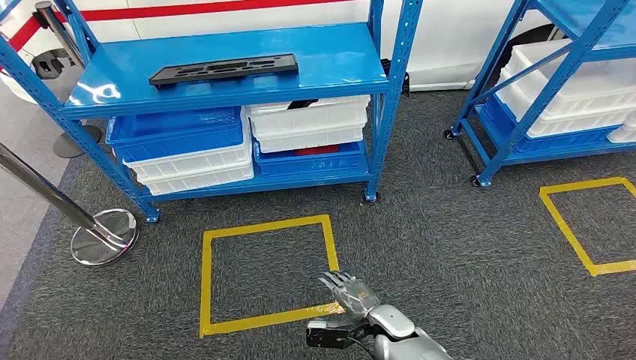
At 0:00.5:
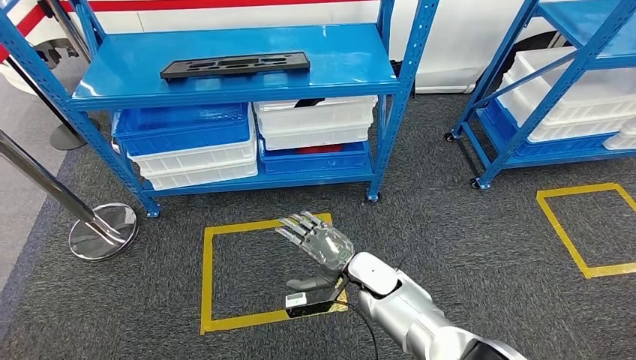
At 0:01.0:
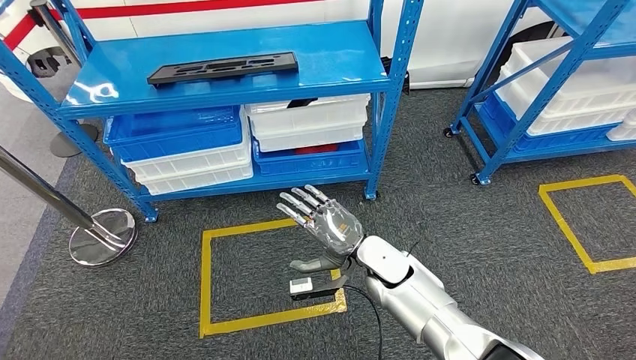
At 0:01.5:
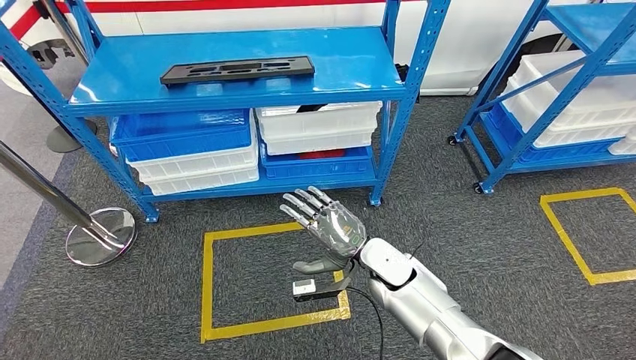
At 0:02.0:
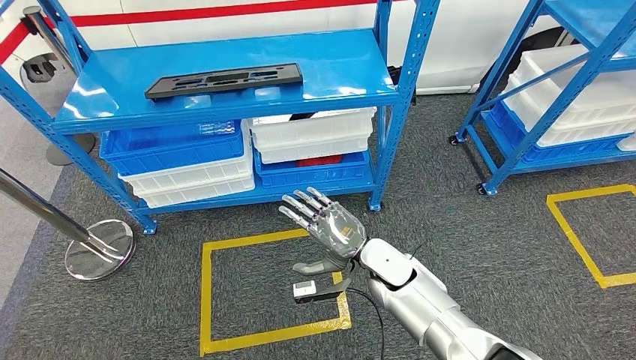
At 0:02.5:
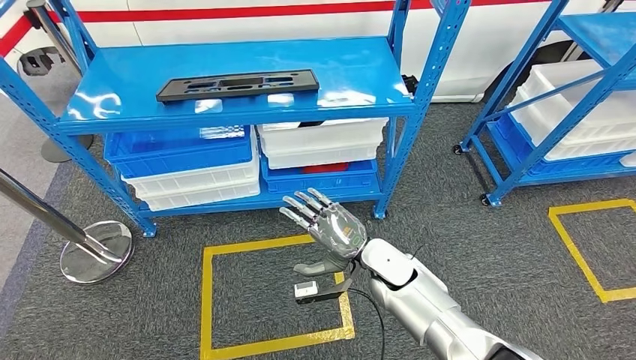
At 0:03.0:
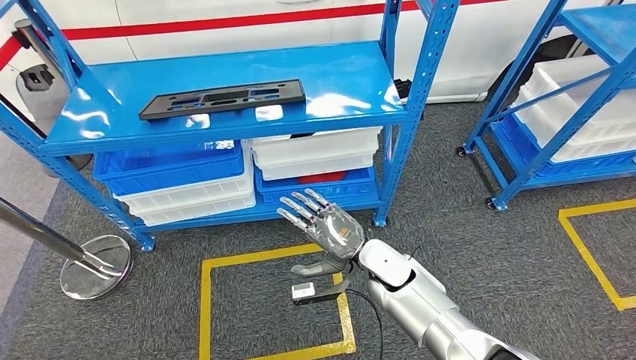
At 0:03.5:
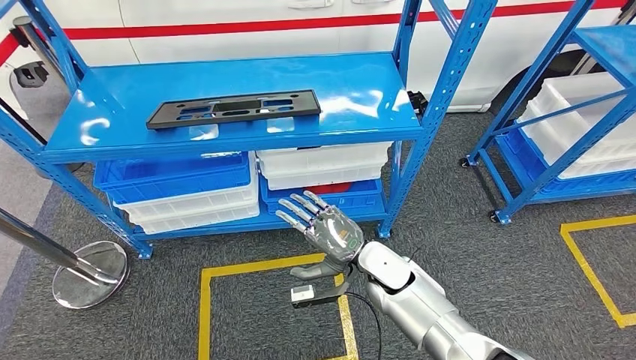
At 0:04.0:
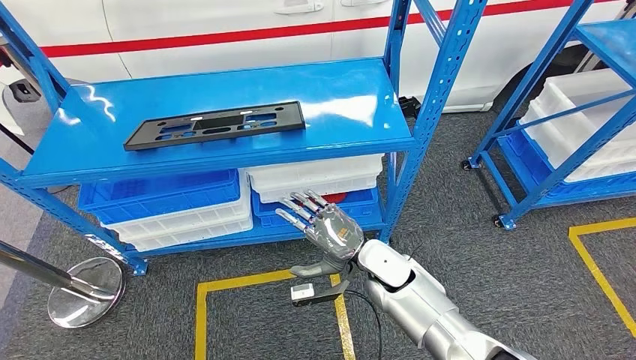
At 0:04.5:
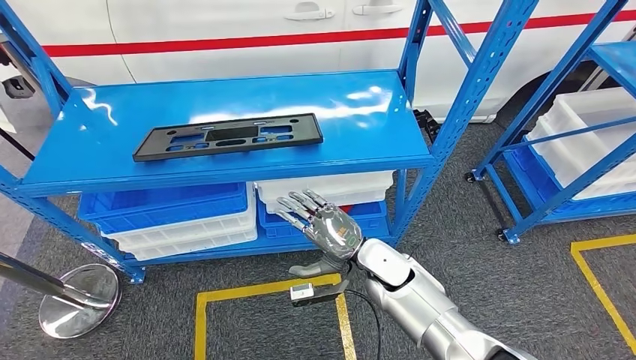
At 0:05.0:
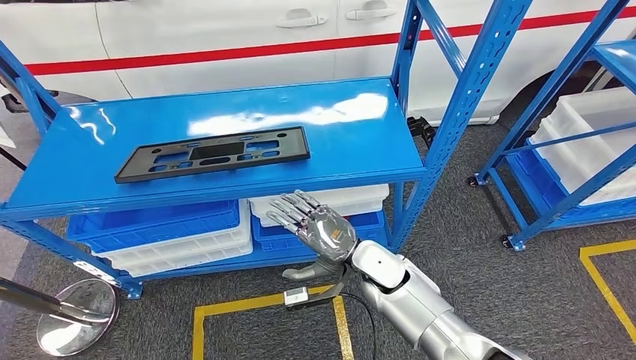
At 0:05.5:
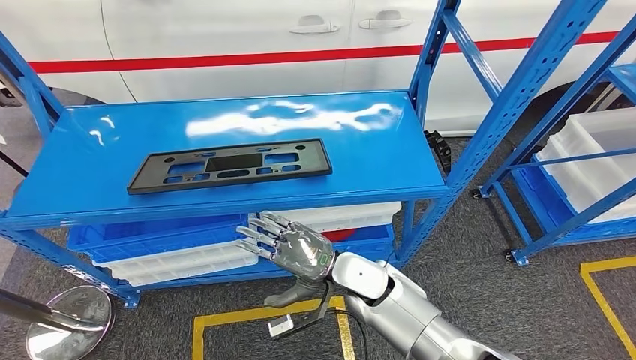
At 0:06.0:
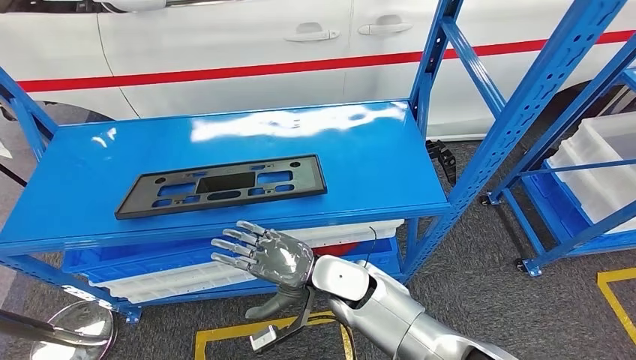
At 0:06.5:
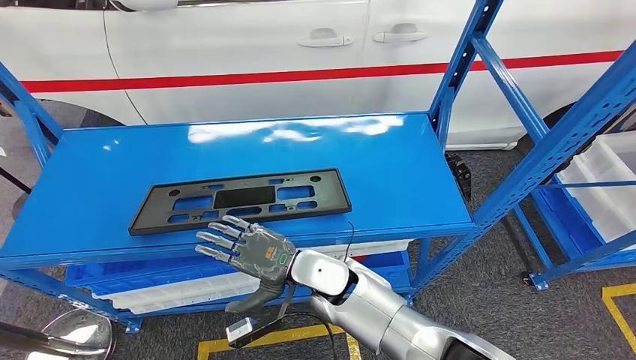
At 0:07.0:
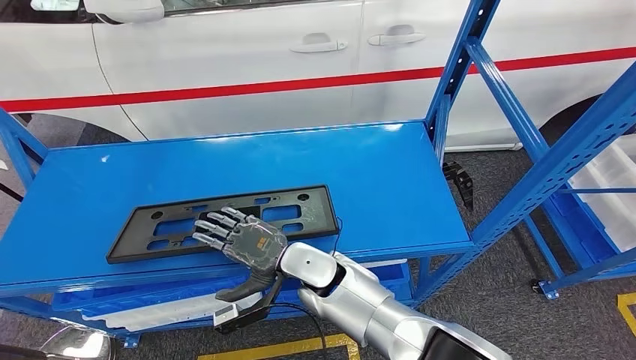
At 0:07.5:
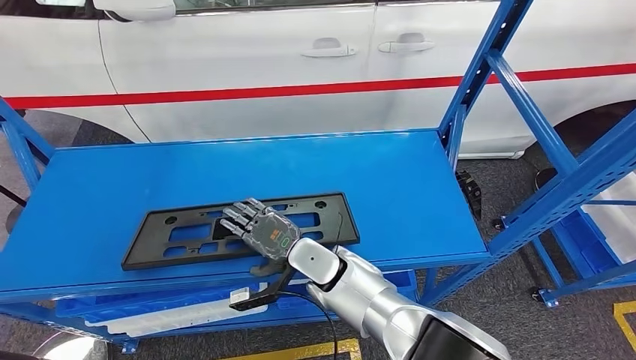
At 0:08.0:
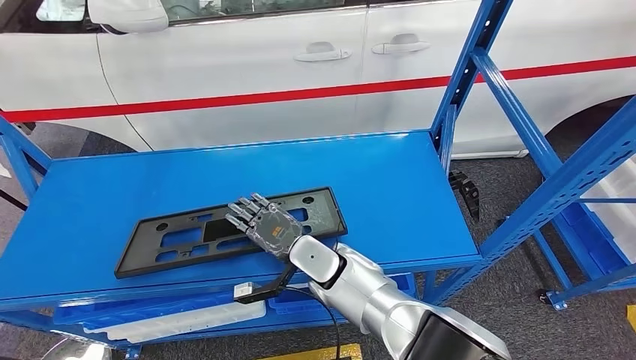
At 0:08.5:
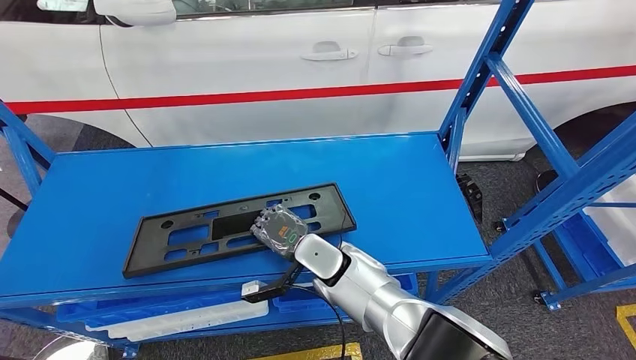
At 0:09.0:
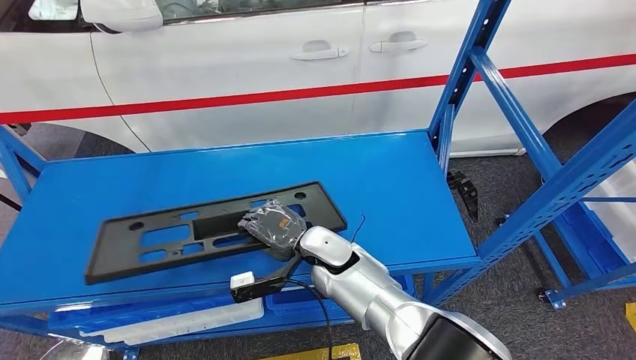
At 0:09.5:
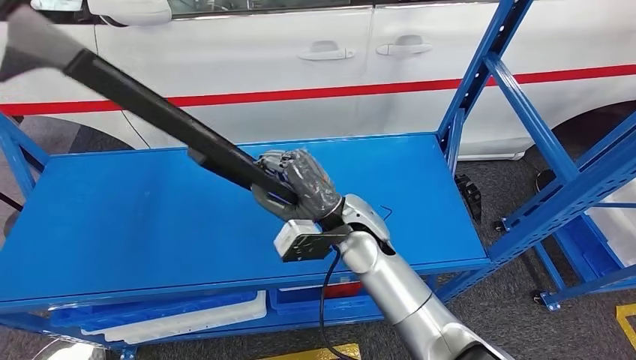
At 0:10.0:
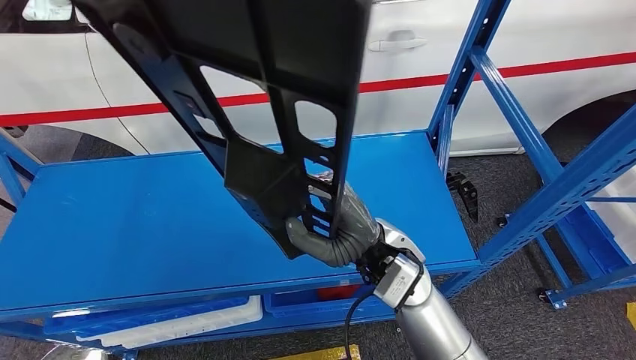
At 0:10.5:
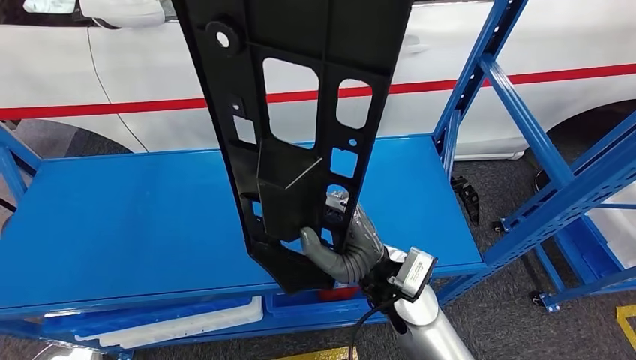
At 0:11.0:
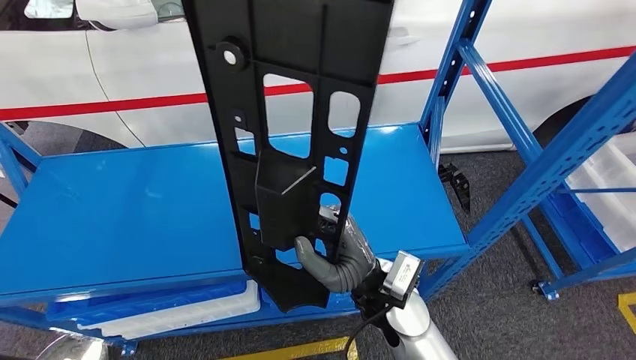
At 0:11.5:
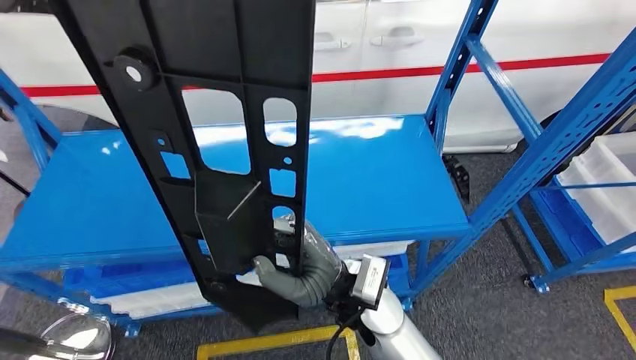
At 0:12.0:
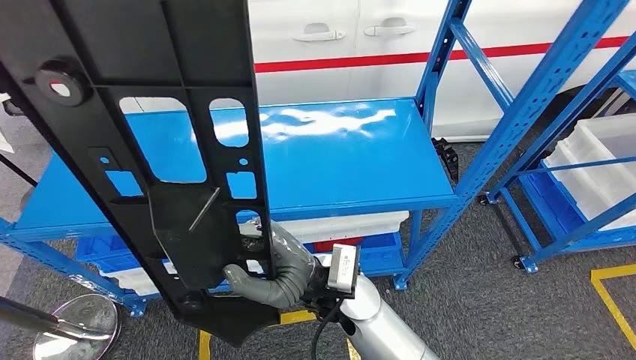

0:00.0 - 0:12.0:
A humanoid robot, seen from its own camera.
Step, 0:00.0 - 0:09.5: Pick up the large material from the shelf.

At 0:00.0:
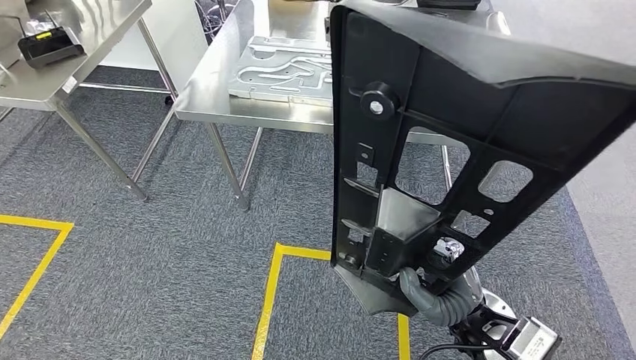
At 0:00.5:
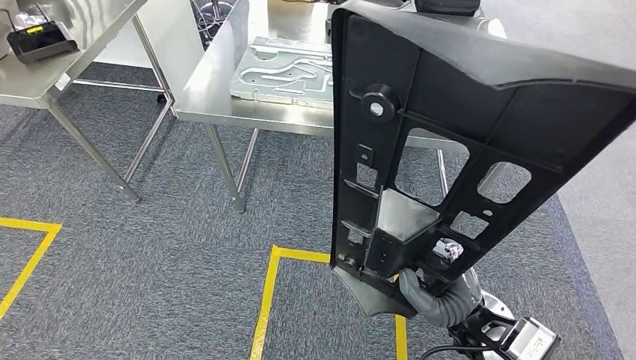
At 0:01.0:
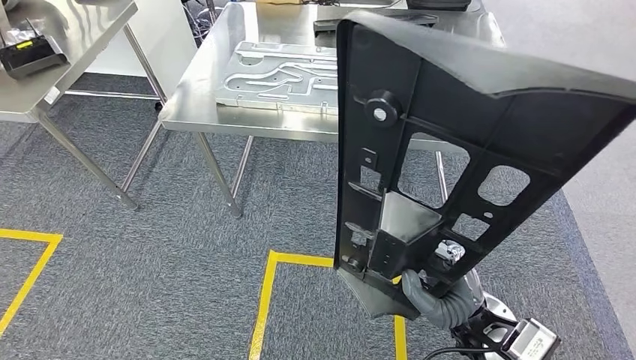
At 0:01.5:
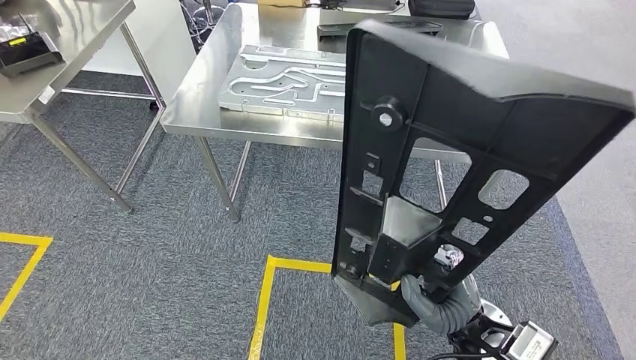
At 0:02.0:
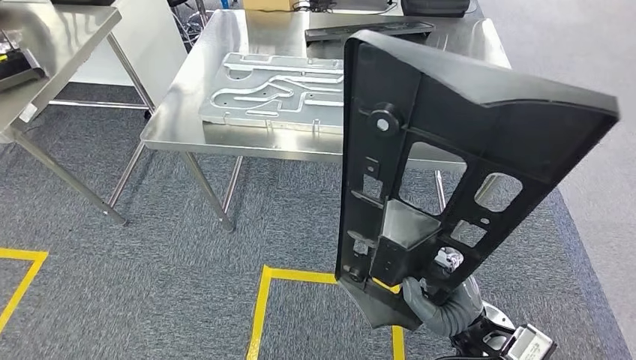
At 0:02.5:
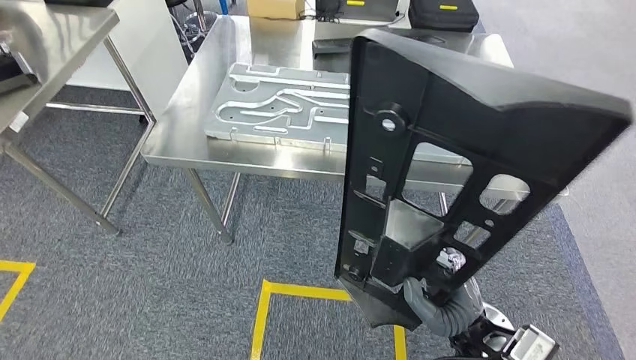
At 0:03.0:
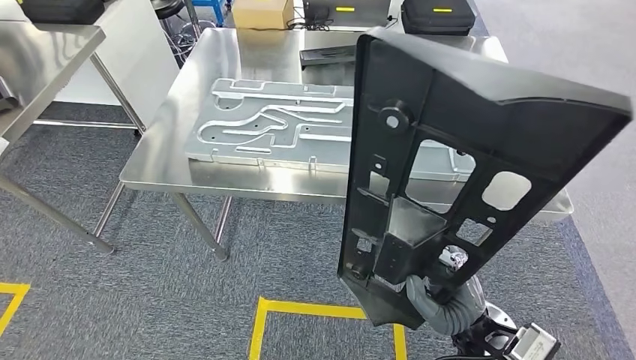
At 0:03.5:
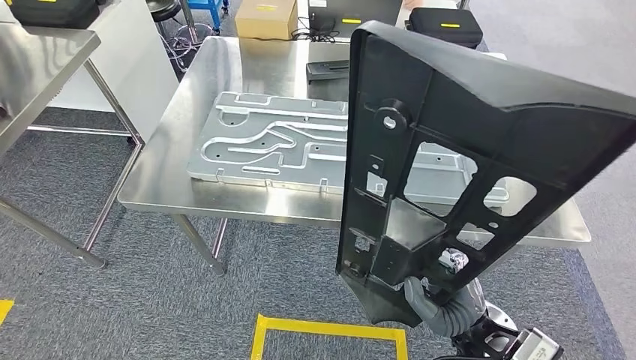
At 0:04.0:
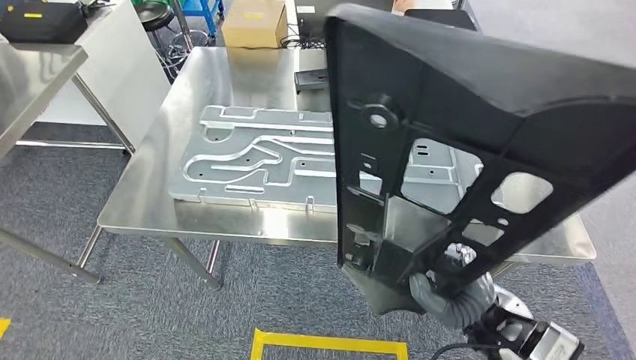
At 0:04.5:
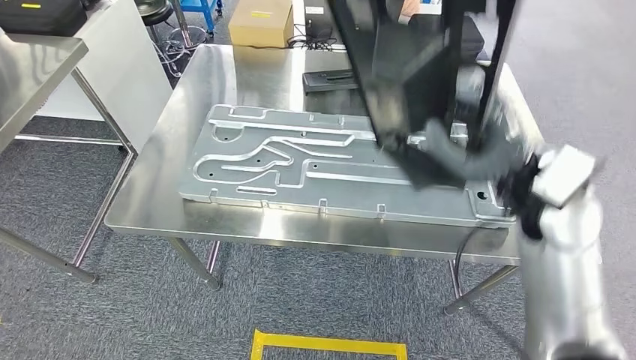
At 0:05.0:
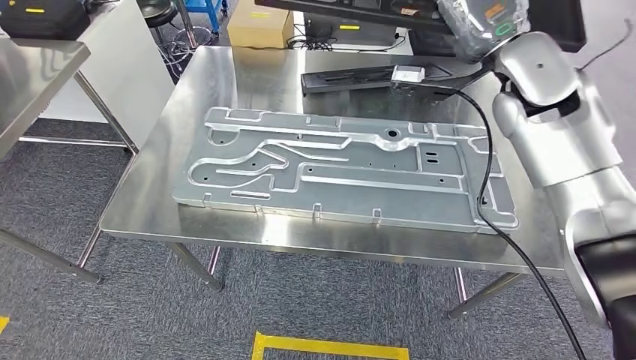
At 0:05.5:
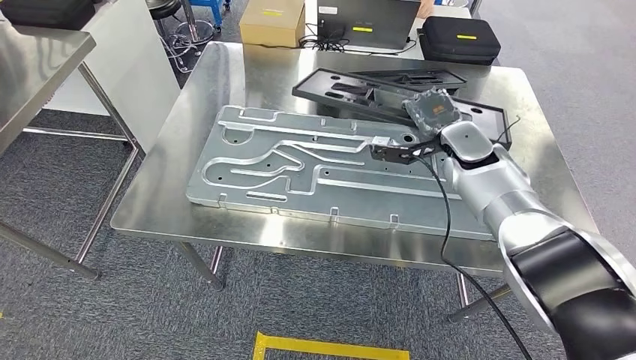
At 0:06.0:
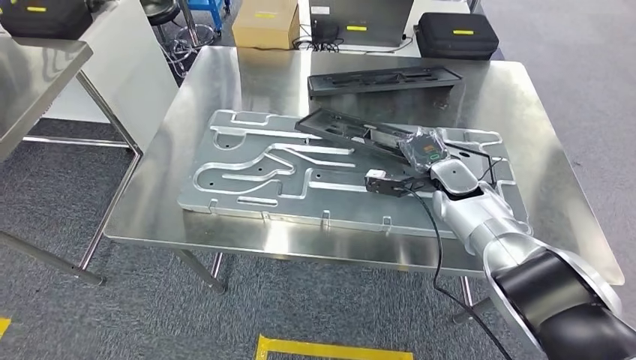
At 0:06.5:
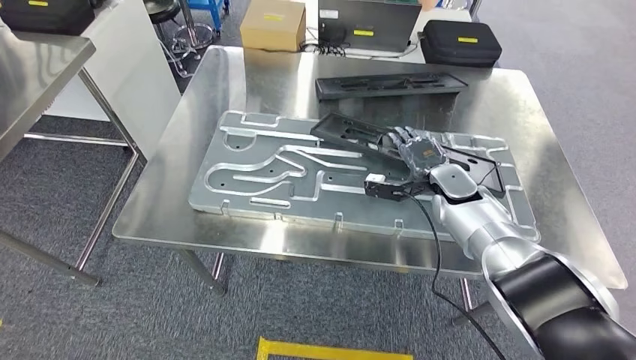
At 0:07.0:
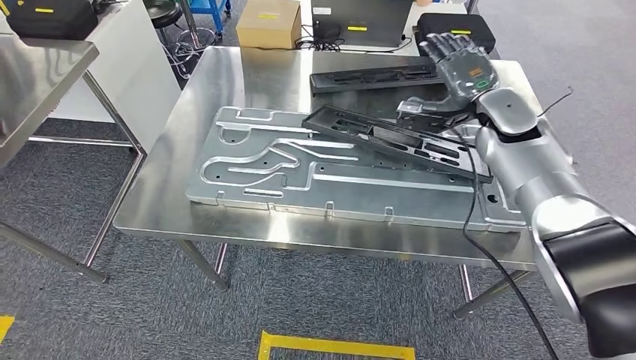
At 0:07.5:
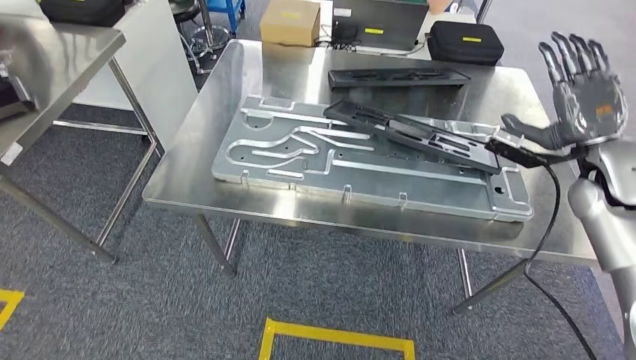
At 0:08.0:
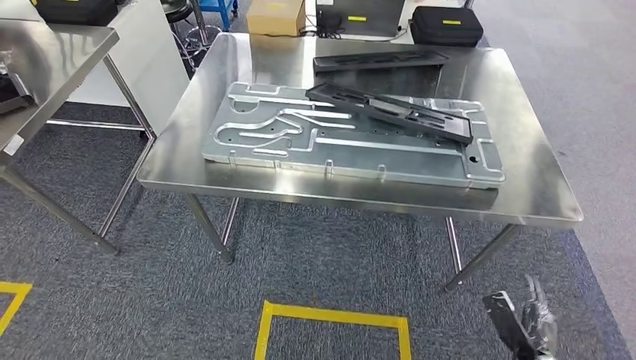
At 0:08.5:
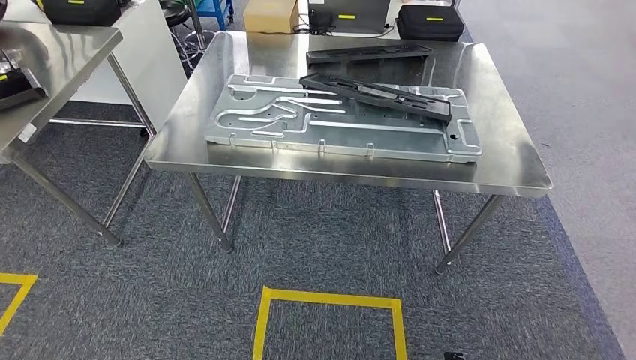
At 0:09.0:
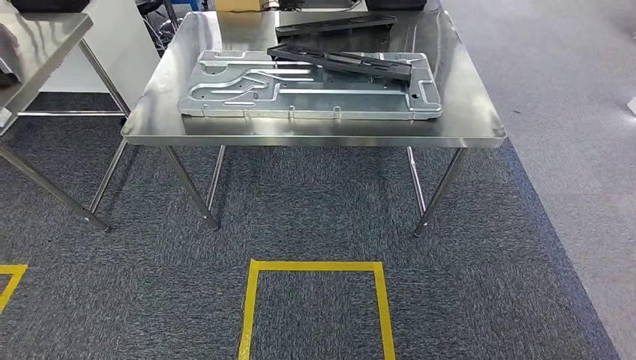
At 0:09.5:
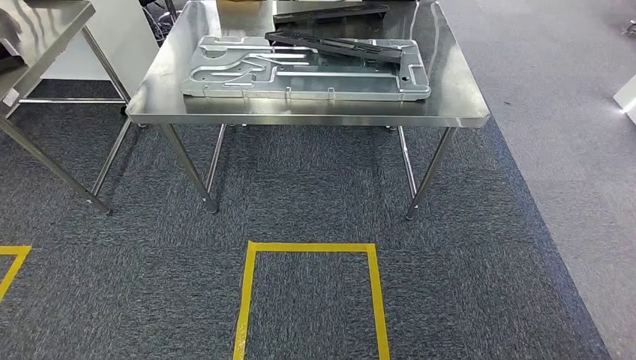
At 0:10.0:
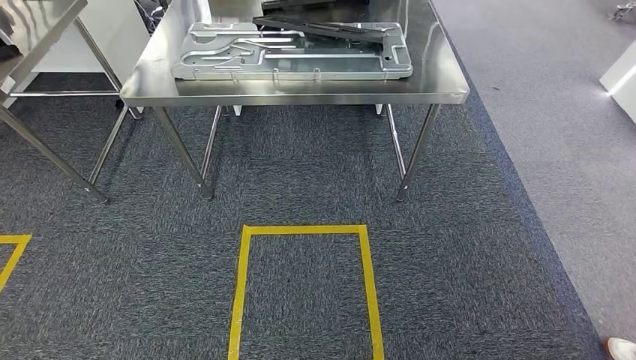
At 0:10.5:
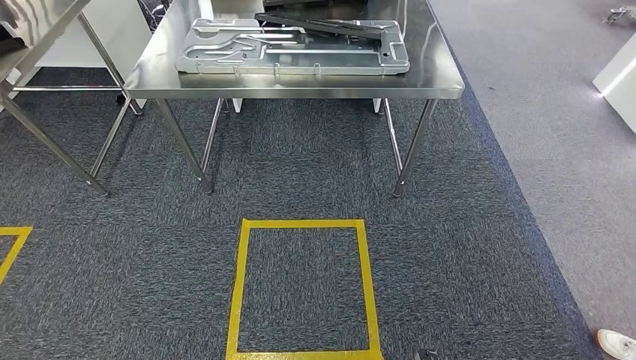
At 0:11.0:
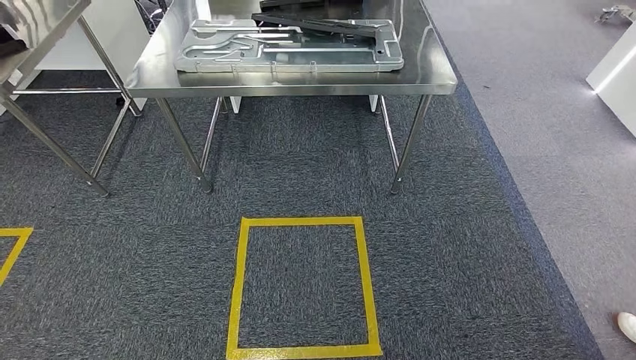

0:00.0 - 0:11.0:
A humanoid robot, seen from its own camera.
Step, 0:00.0 - 0:04.5: Move the large material to the workbench.
Step, 0:06.0 - 0:07.5: Insert the large material into the corresponding slot on the workbench.
Step, 0:09.5 - 0:10.5: Return to the initial position at the shelf.
